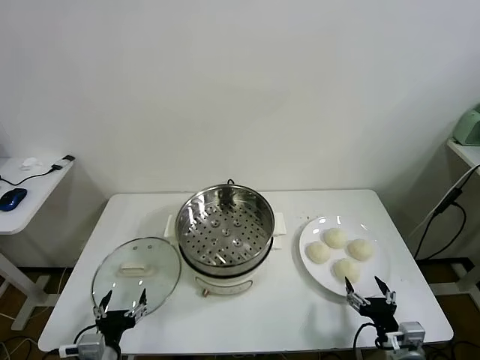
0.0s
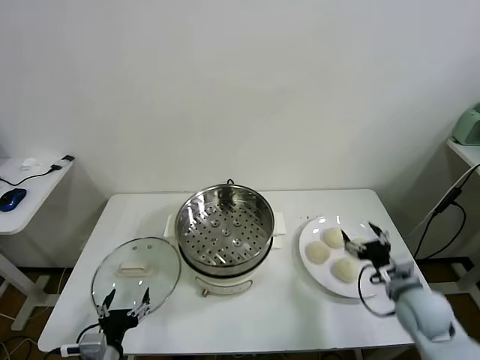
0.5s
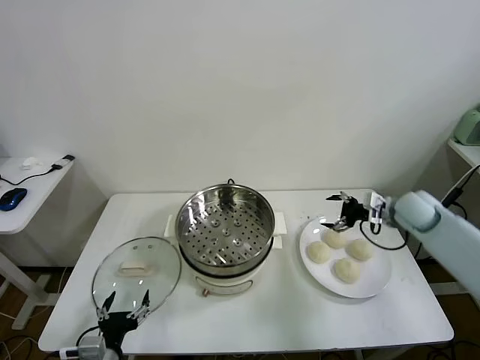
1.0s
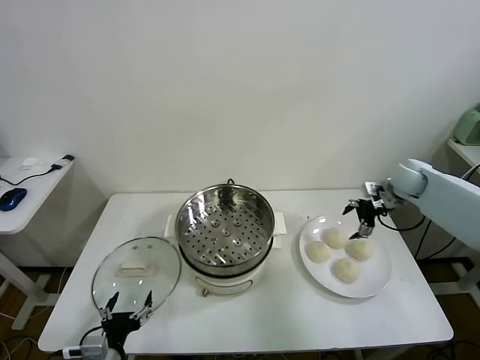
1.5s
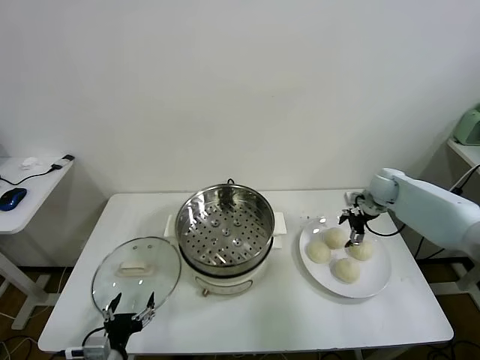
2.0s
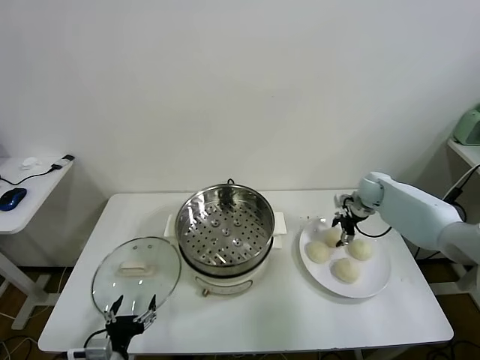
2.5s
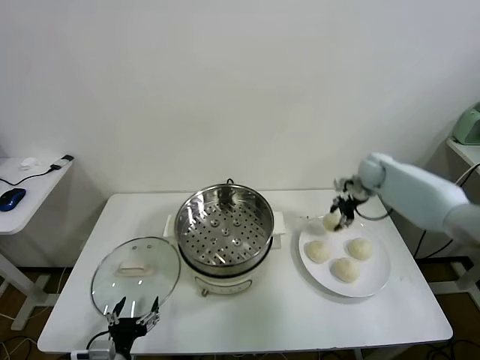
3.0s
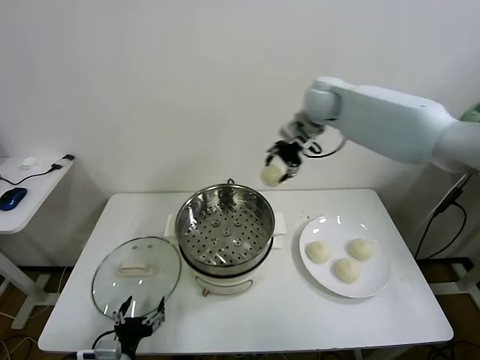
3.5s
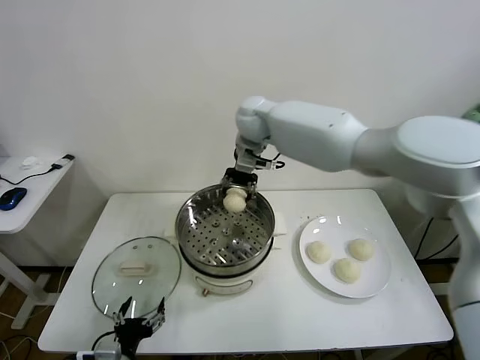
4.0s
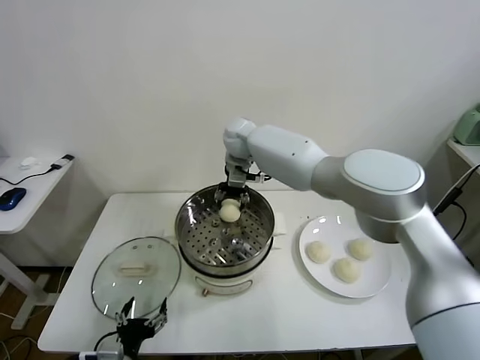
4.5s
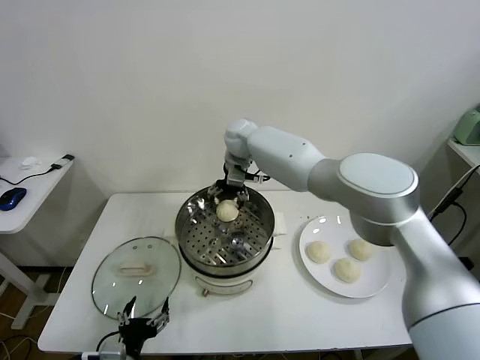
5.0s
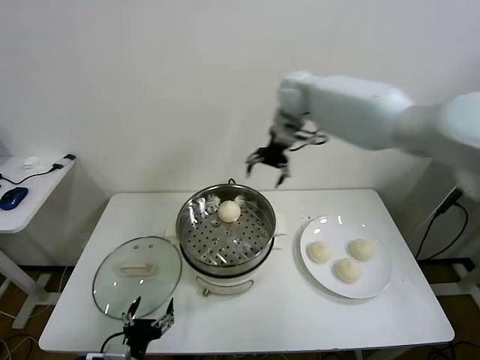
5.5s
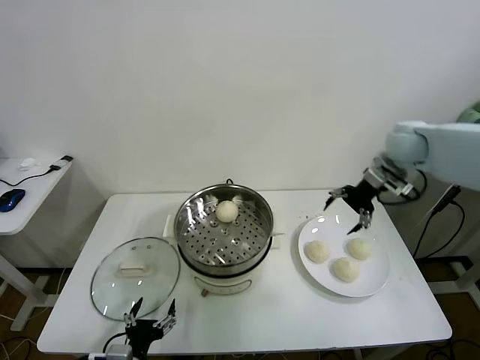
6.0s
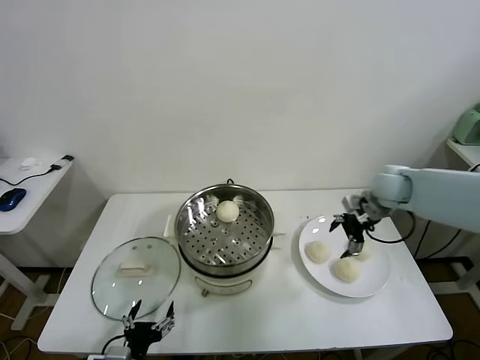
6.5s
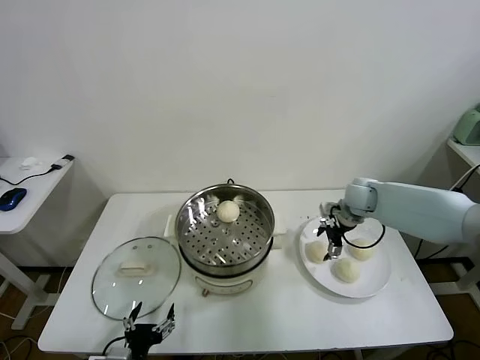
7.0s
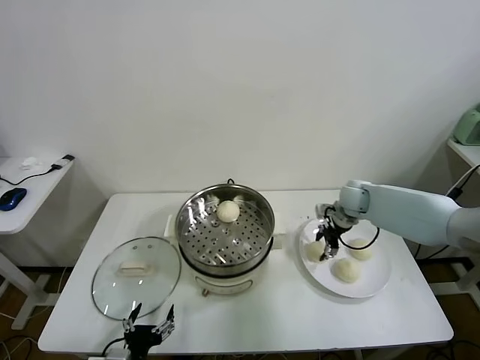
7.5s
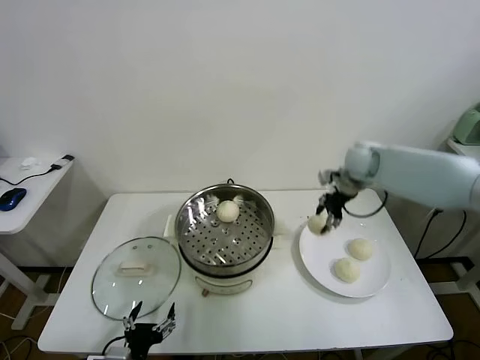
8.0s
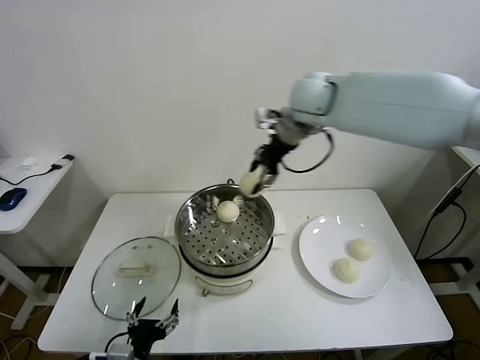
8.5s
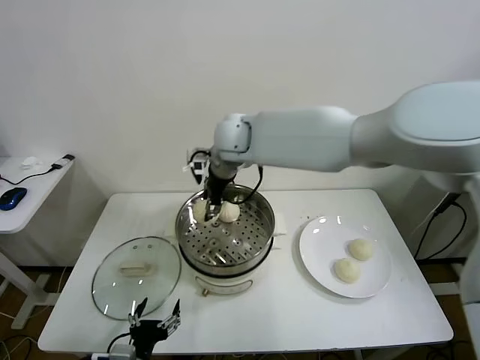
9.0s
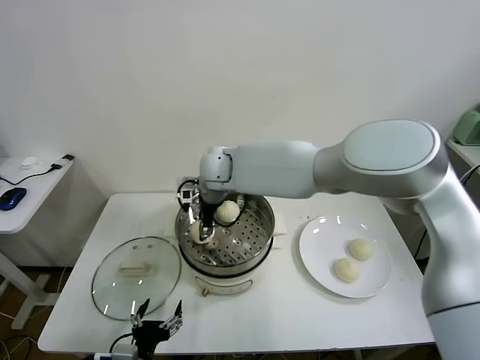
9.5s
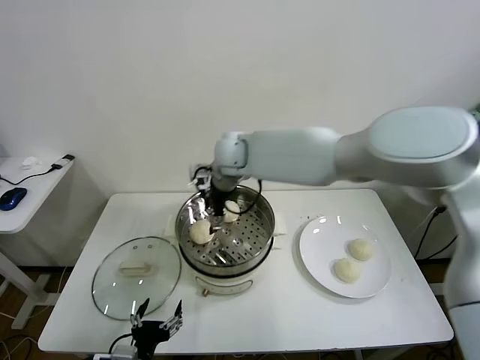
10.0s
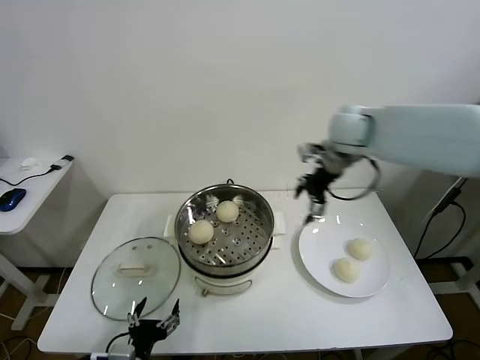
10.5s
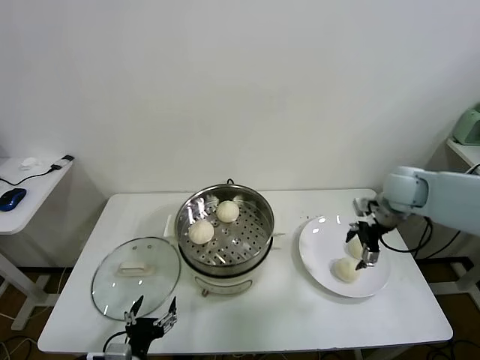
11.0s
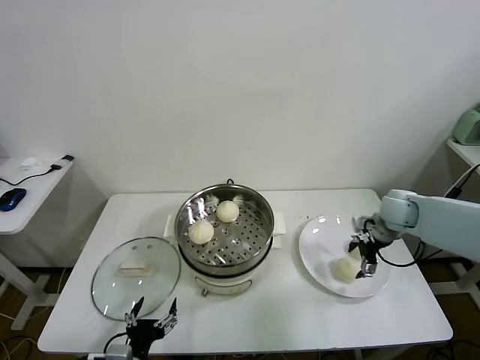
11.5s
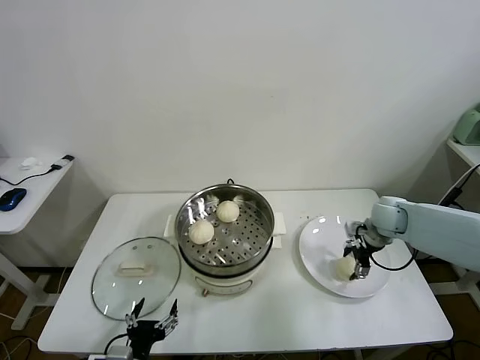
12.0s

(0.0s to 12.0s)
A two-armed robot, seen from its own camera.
Task of the whole recording: take steamed baozi put them in steamer.
Step, 0.0s - 2.5s: Grasp the baozi in the plate with right gripper.
Step, 3.0s - 4.5s: Place the baozi on the steamer with right gripper.
Step, 5.5s - 7.5s: Grasp the baozi in the plate with right gripper.
Step, 8.0s - 10.0s: Place the baozi on the steamer with right gripper.
2.0s - 4.0s: The right gripper heads to the left and upward, covering some 40 cm, and closes its fingers.
4.0s - 6.0s: The right gripper shifts roughly 35 cm to the right, and opens its fingers.
6.0s - 8.0s: The right gripper is displaced to the left and forward by roughly 10 cm, reaches approximately 20 cm downward, then returns, and closes.
8.0s - 10.0s: The right gripper travels to the left by about 30 cm, and opens its fingers.
10.0s - 12.0s: The right gripper goes approximately 40 cm to the right and downward, and closes.

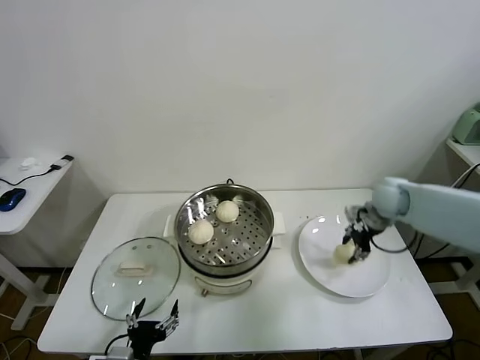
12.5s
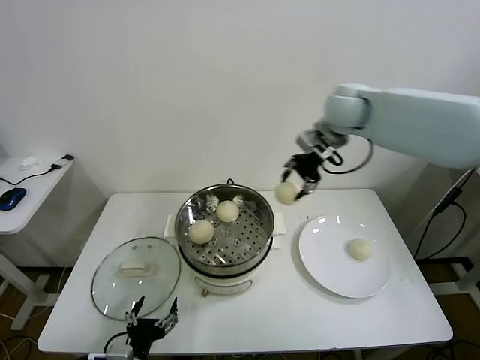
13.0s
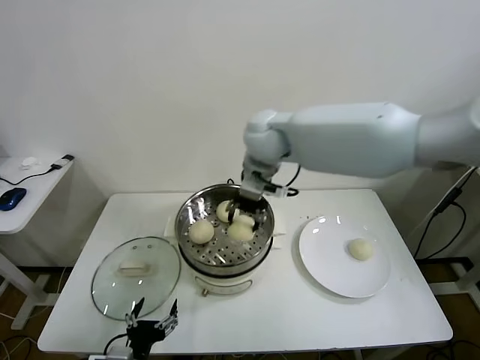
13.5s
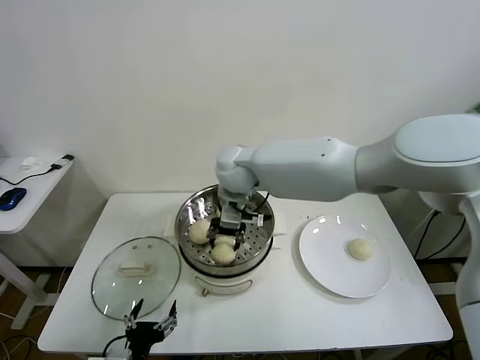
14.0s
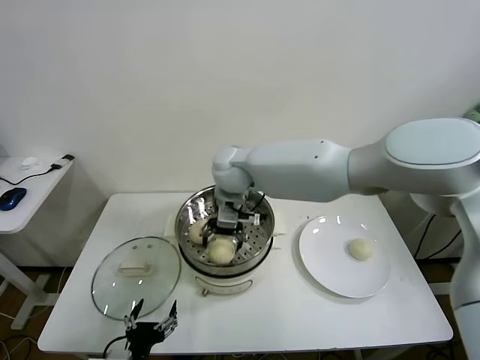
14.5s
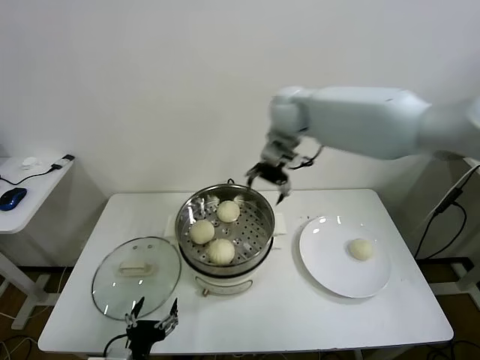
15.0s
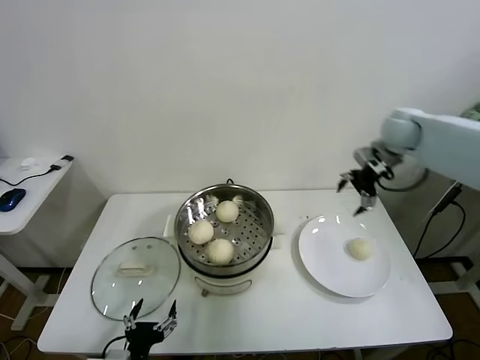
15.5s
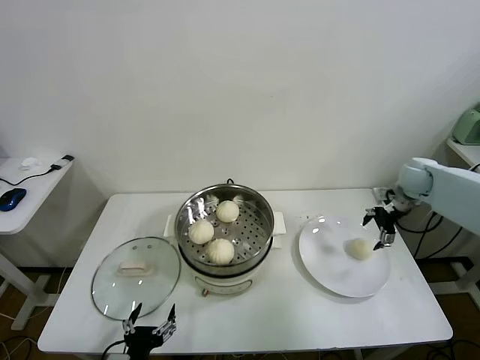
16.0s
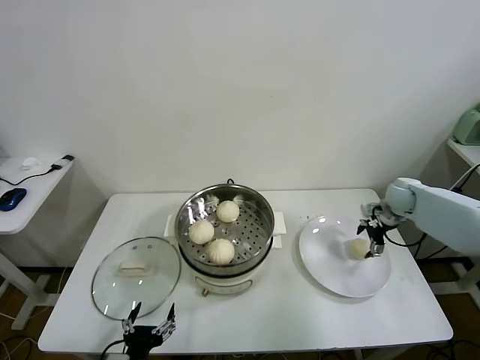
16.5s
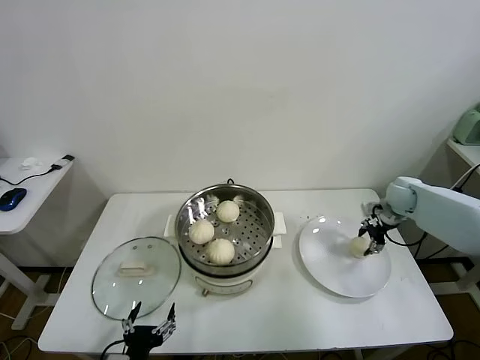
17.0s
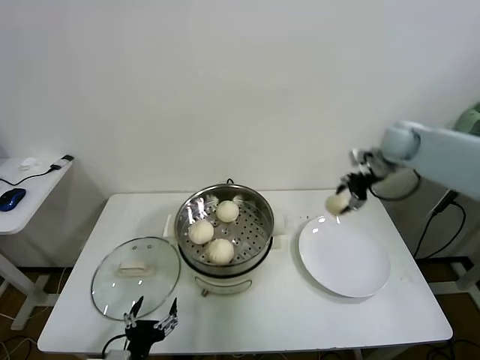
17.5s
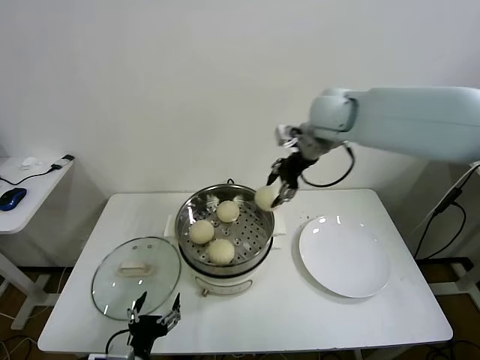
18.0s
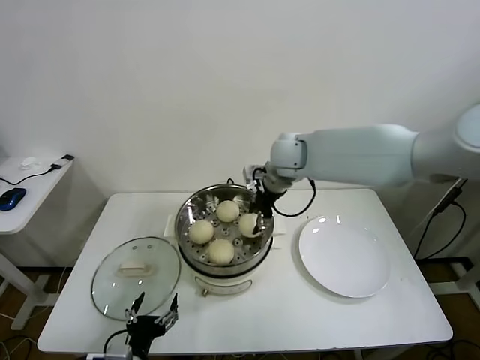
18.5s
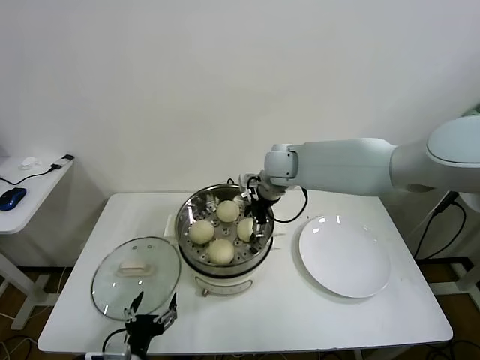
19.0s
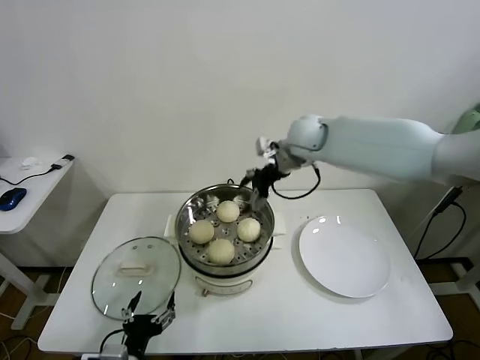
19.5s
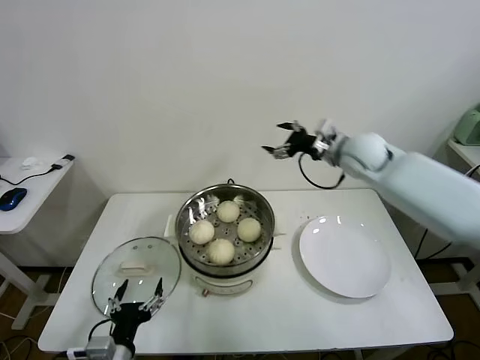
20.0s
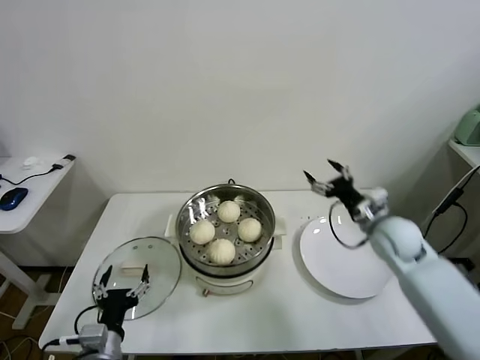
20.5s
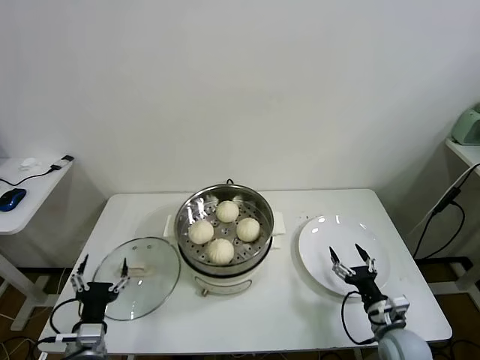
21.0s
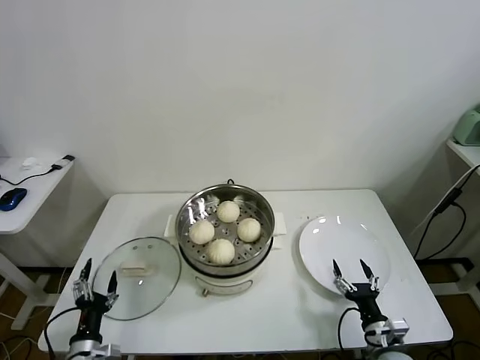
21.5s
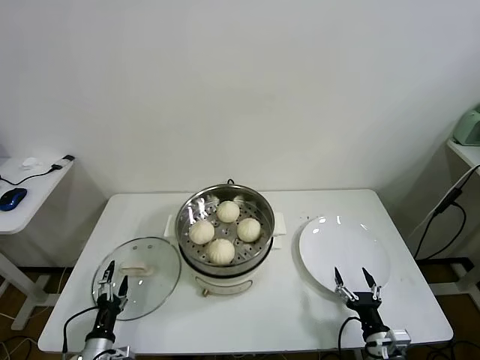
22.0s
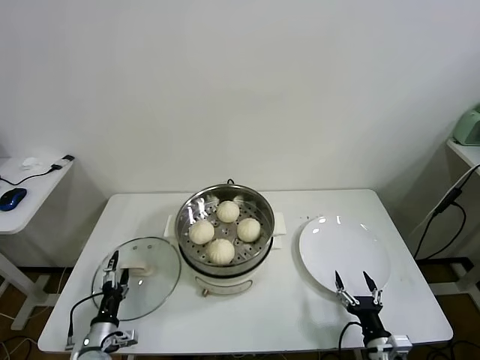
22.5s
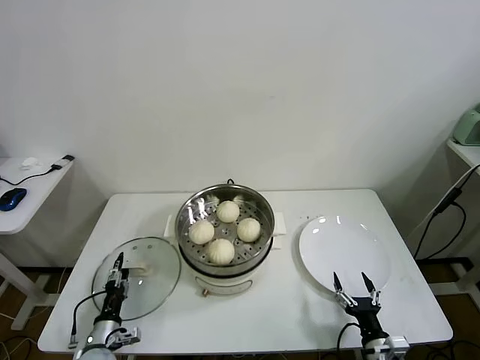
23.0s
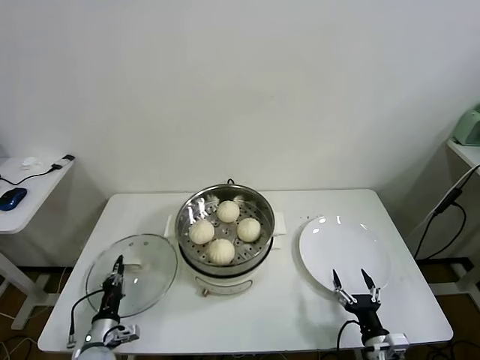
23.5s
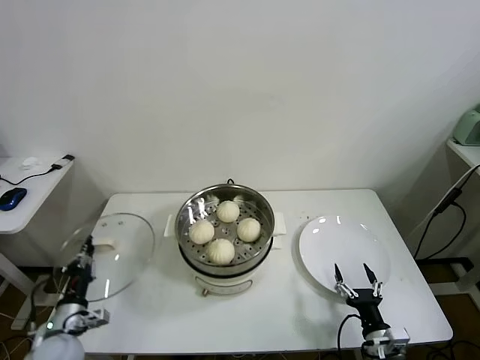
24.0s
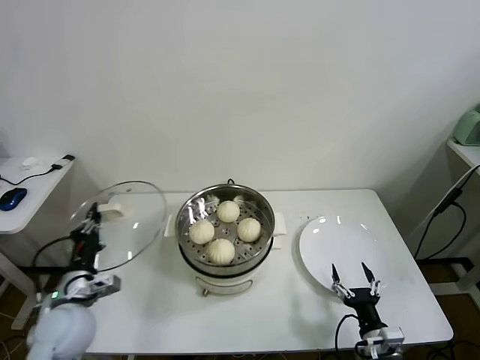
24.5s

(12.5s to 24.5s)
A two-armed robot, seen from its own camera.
Task of the whole recording: take steamed baozi put them in steamer.
Step, 12.5s - 14.5s: Place the baozi on the steamer with right gripper.
Step, 15.0s - 16.5s: Grasp the baozi in the plate with right gripper.
Step, 17.0s - 19.0s: Place the baozi on the steamer with right gripper.
Step, 19.5s - 23.5s: Grasp the pot lid with left gripper.
12.5s - 14.5s: The right gripper moves to the left, approximately 40 cm, and opens up.
14.5s - 16.5s: The right gripper is displaced to the right by roughly 50 cm.
16.5s - 18.5s: The right gripper is displaced to the left and upward by roughly 35 cm, and closes up.
18.5s - 20.5s: The right gripper goes roughly 30 cm to the right, downward and backward, and opens its fingers, while the left gripper shifts by some 5 cm.
20.5s - 22.5s: The right gripper shifts about 35 cm backward and downward. Meanwhile the left gripper moves downward and to the left, about 15 cm.
22.5s - 24.5s: The left gripper shifts about 20 cm upward, and closes its fingers.

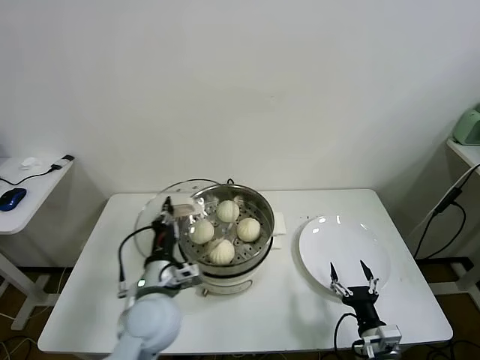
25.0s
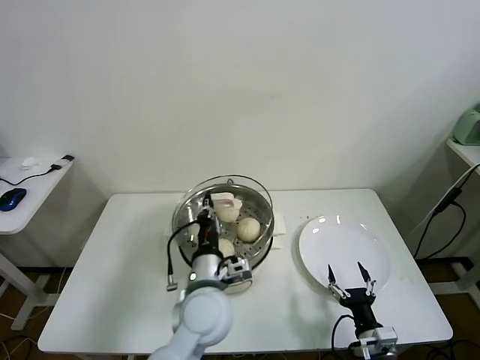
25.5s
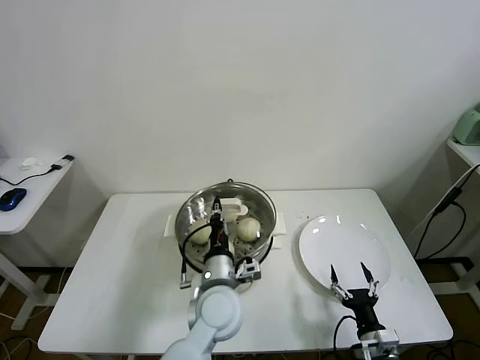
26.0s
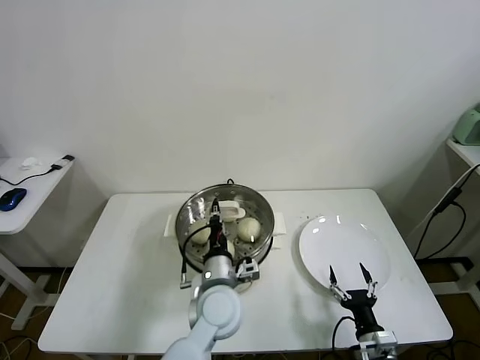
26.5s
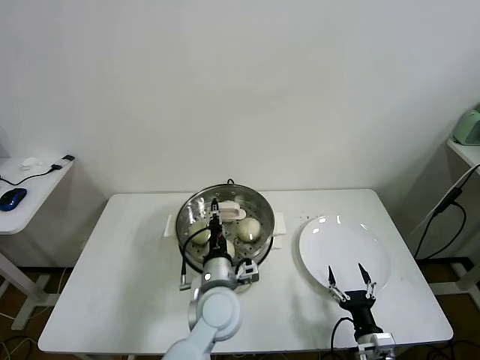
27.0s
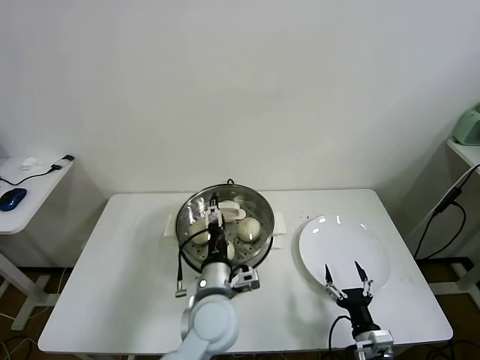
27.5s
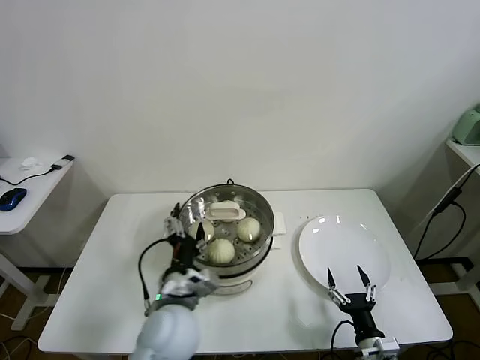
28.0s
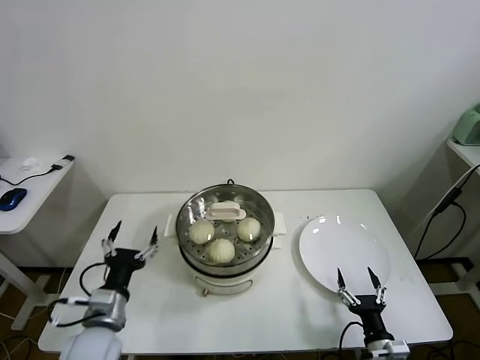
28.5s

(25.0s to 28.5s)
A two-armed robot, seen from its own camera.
Task of the whole recording: take steamed baozi put them in steamer.
Step, 25.0s - 27.5s: Place the pot lid on the steamer with left gripper.
25.0s - 27.0s: The left gripper goes approximately 15 cm to the right.
27.0s - 28.5s: The left gripper moves to the left, roughly 20 cm, and opens.
